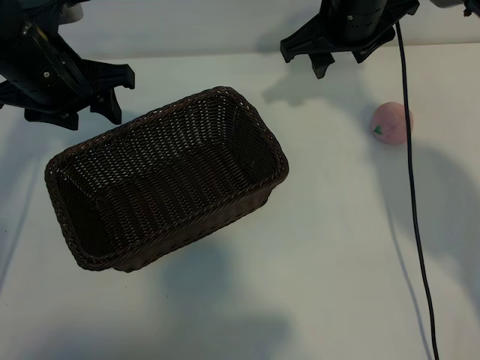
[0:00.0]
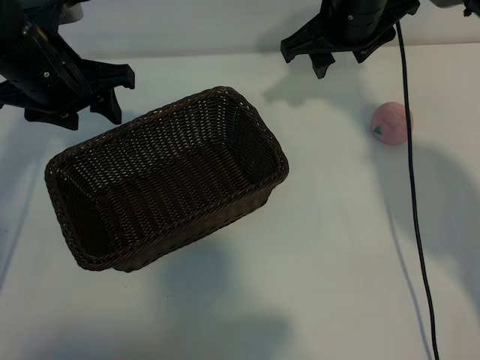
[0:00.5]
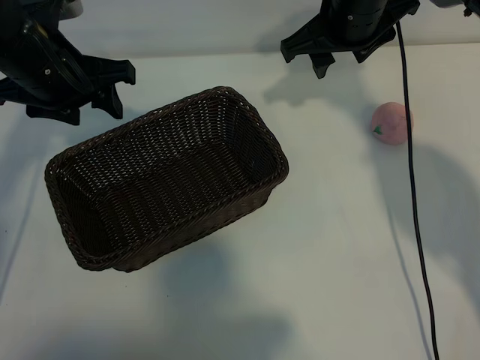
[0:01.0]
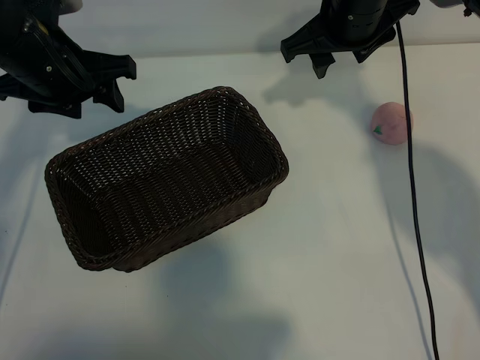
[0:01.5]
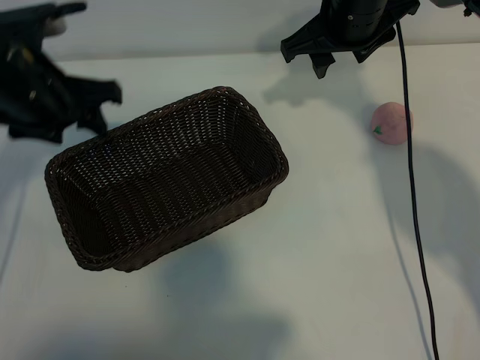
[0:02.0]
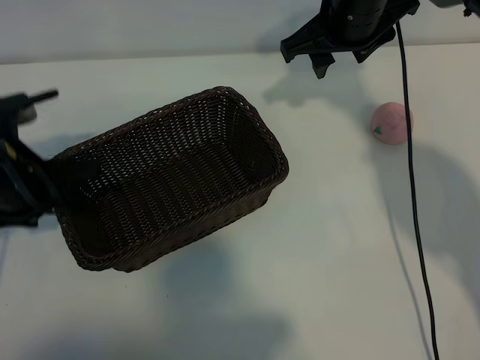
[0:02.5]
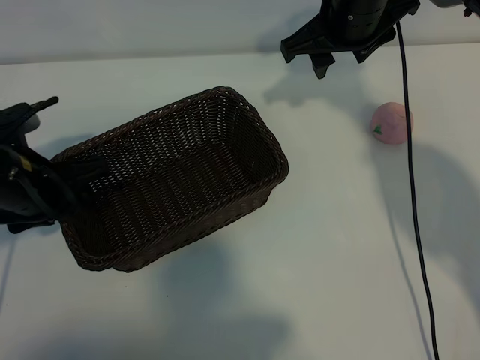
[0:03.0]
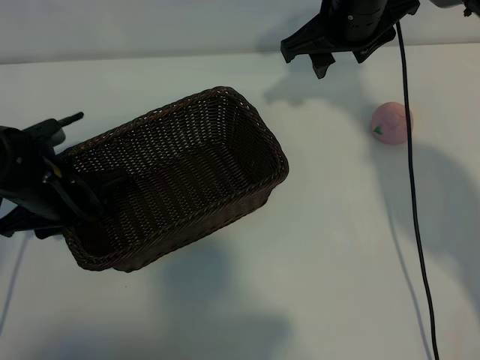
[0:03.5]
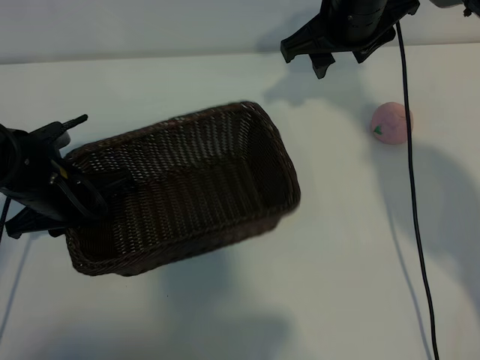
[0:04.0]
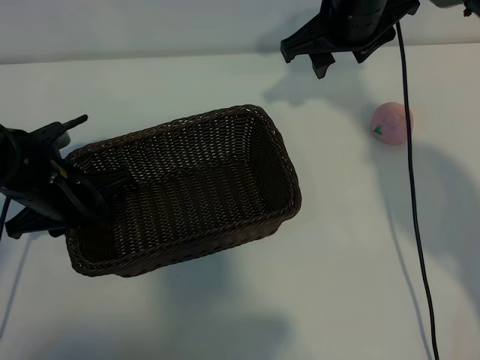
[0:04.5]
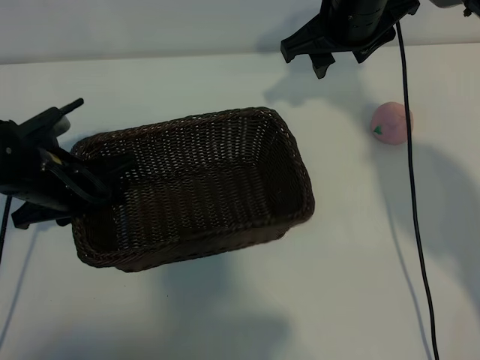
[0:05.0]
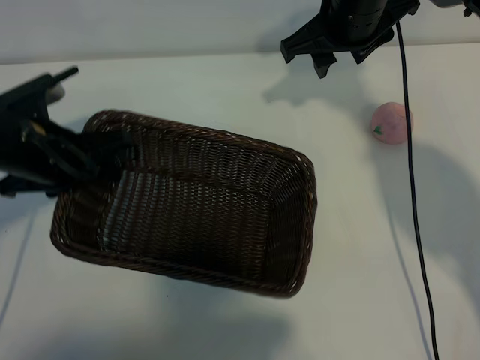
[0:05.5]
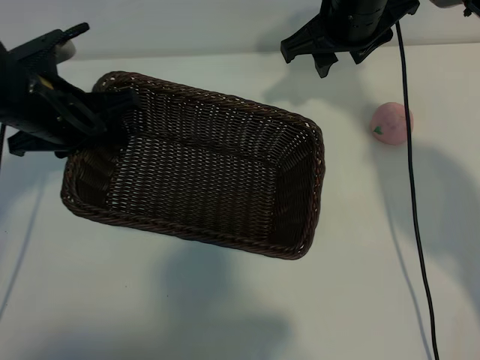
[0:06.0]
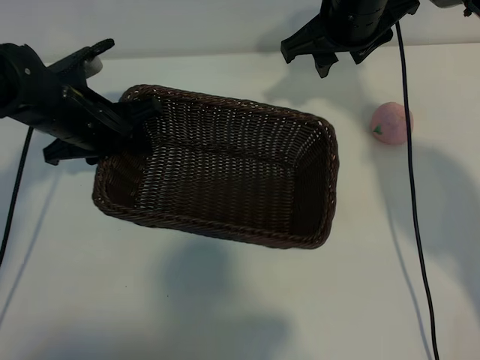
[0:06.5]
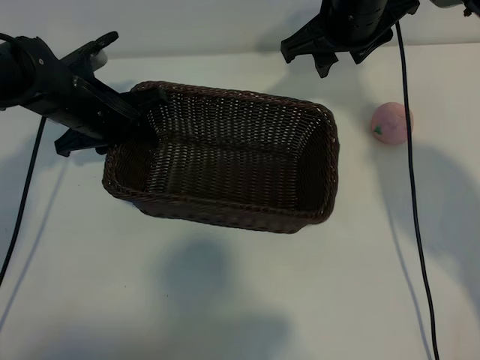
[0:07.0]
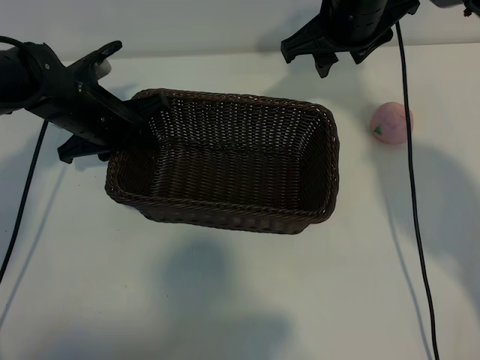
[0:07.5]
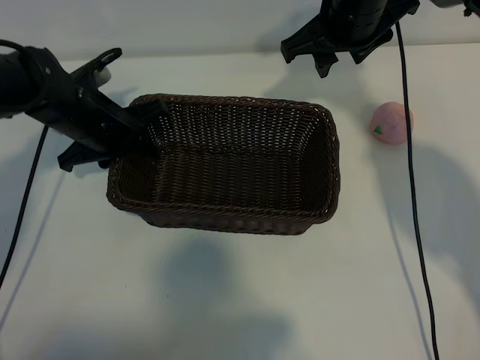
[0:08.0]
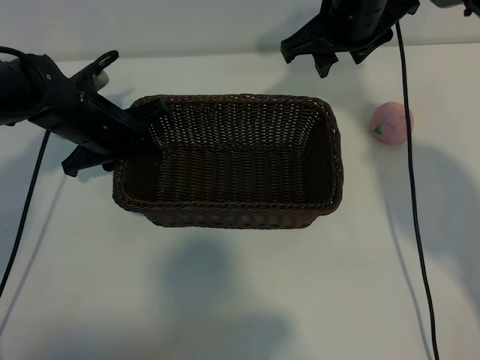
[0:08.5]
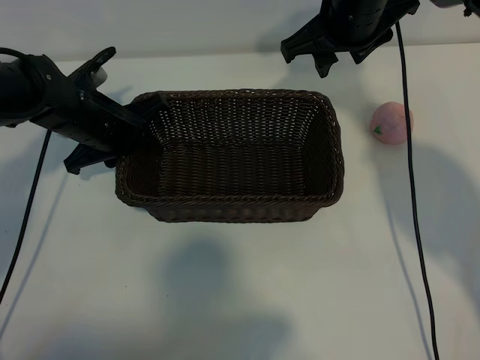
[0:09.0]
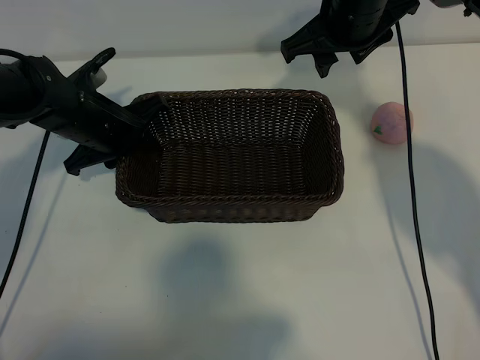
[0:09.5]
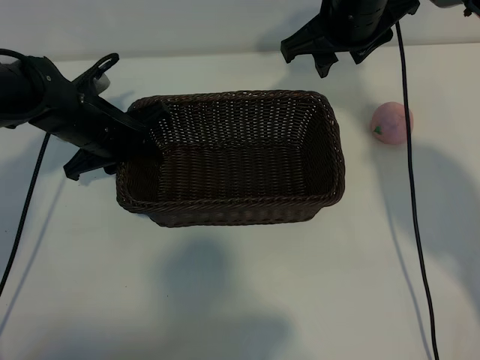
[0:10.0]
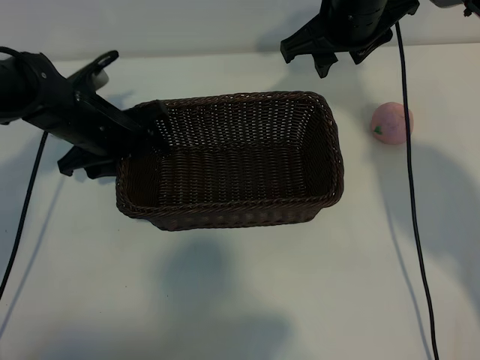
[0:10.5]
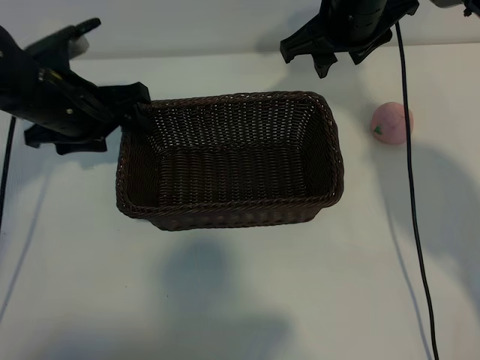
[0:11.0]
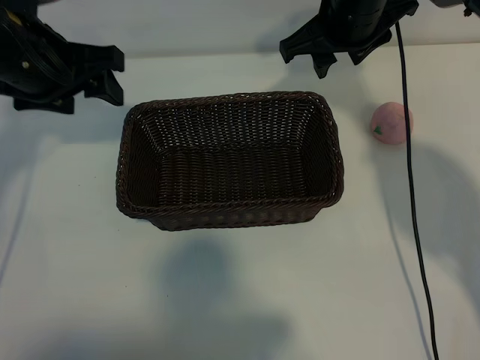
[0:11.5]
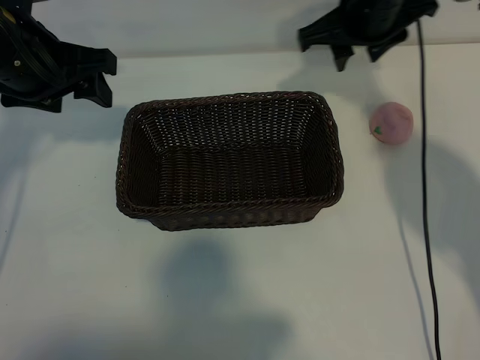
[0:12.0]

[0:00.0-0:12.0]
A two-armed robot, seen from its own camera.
Task of the whole recording: pick up the peach and put it into the basket.
Step, 0:01.0 to 0:04.0: Grasp the basket with left gripper.
Step, 0:04.5 to 0:10.5: Place the basket in the center of view with left gripper.

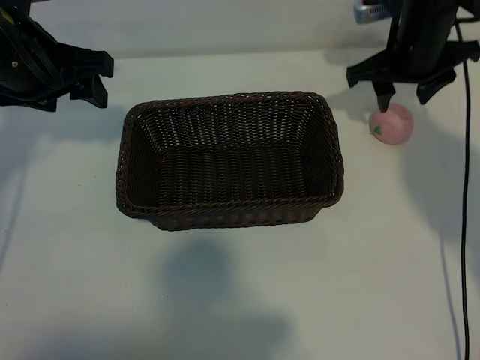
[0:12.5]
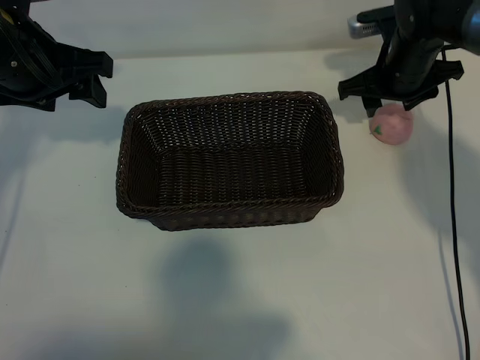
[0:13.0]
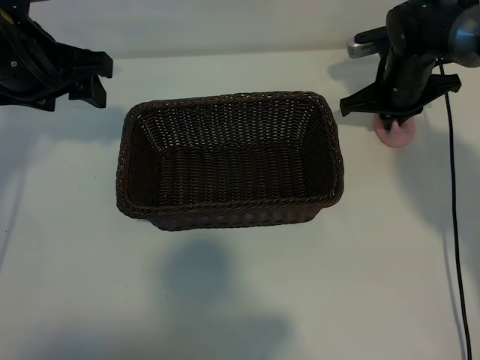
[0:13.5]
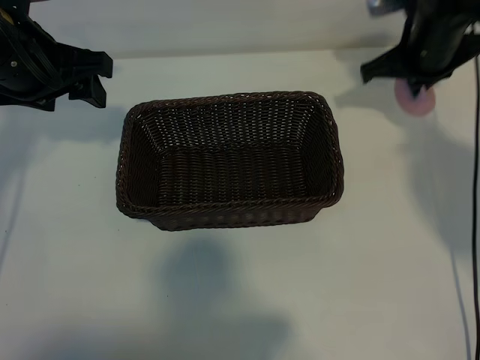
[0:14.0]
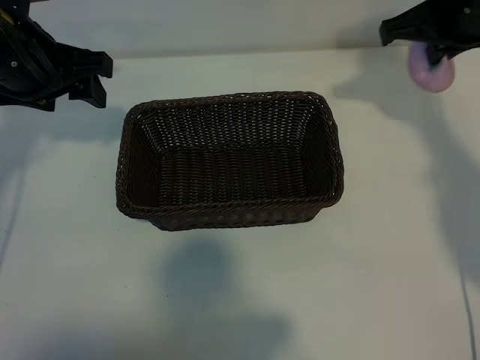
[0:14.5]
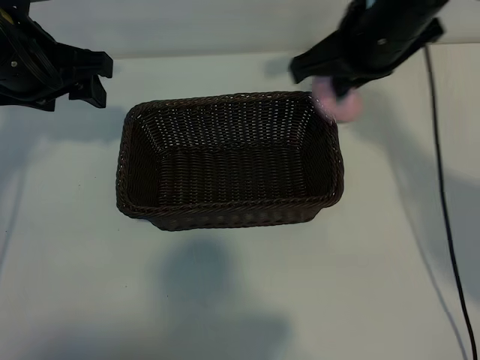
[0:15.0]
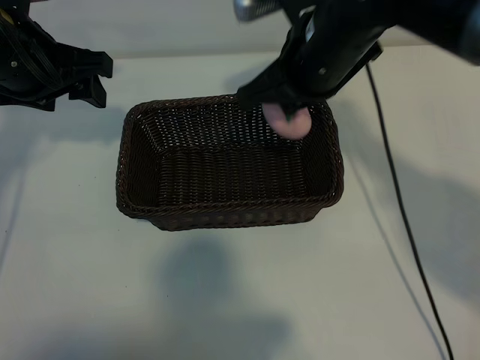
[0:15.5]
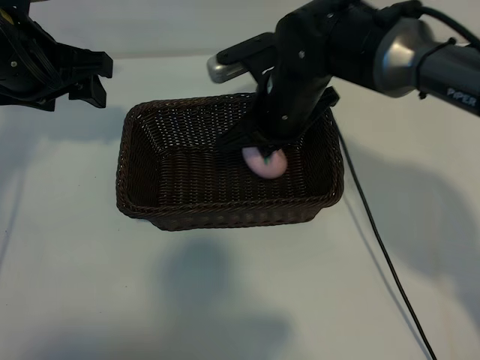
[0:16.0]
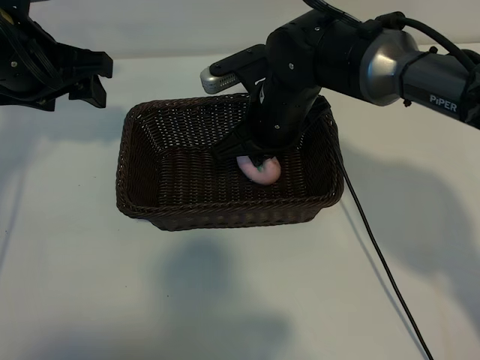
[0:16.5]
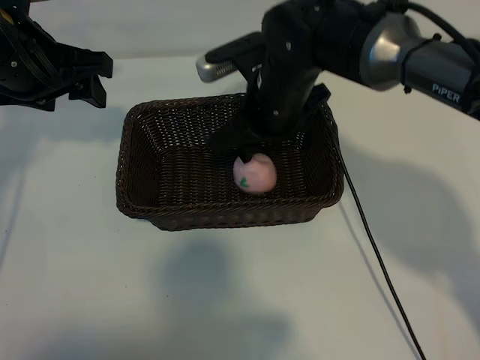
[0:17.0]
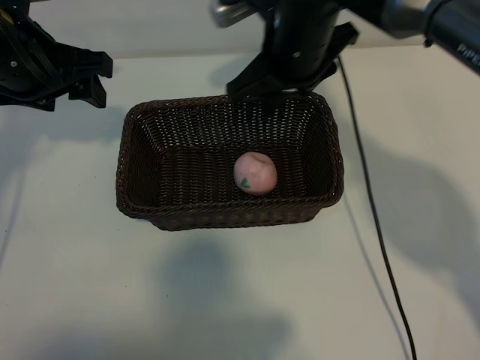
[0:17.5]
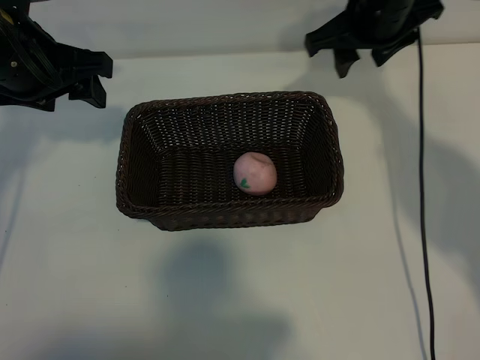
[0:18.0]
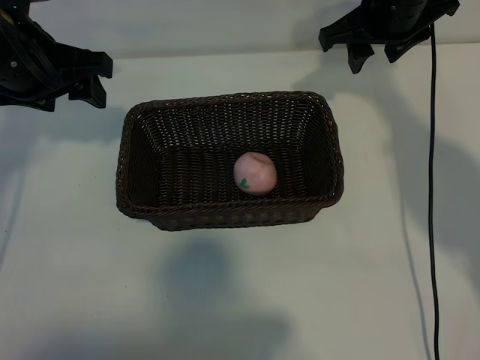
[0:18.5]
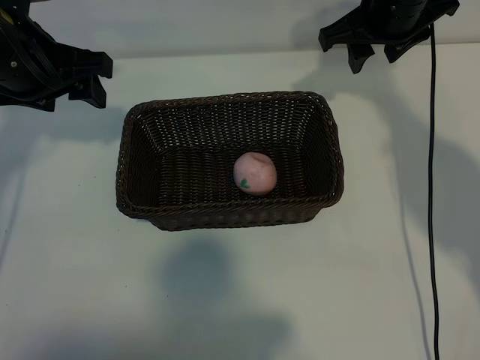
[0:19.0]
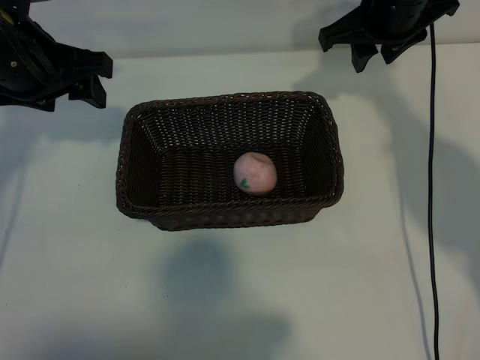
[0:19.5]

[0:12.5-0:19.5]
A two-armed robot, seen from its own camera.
Task of the whole recording: pick up the peach and put it into the basket.
Step, 0:14.0 to 0:17.0: Place the peach in the basket with right gripper.
